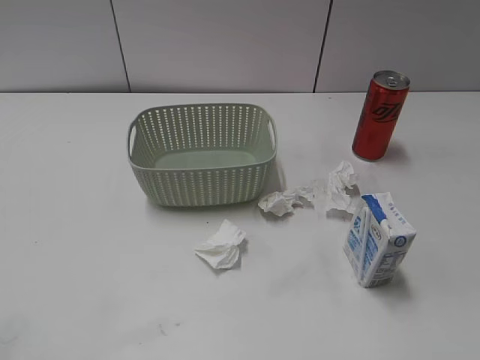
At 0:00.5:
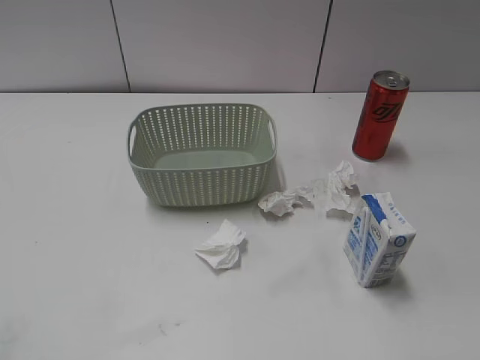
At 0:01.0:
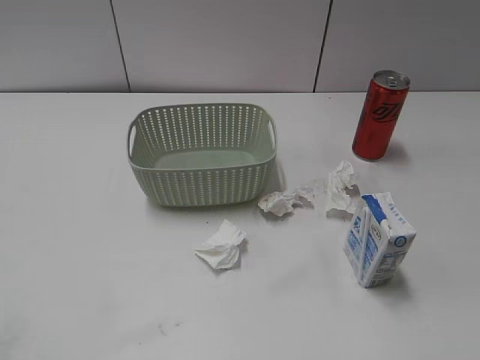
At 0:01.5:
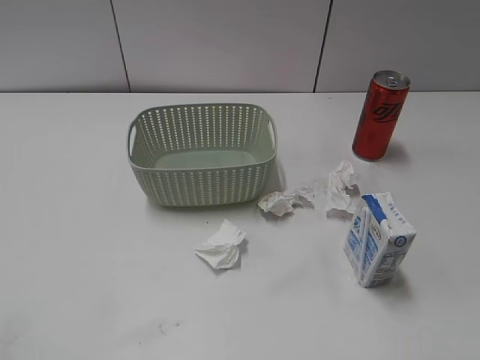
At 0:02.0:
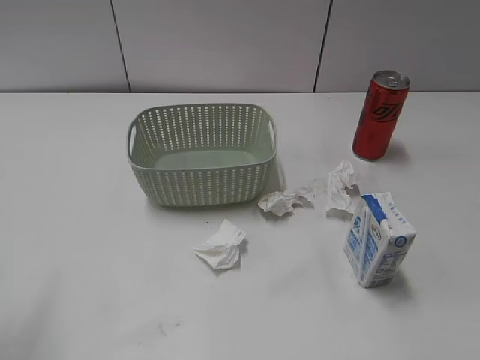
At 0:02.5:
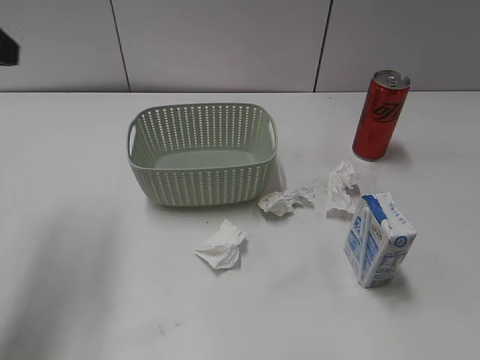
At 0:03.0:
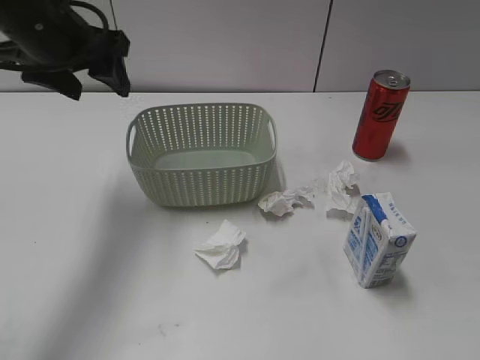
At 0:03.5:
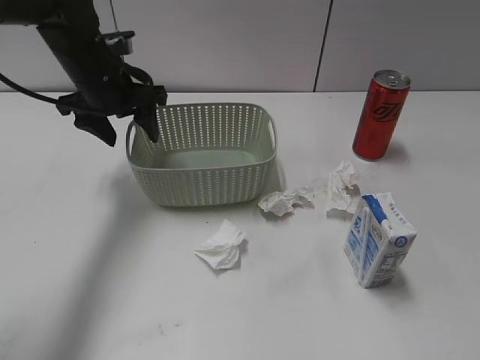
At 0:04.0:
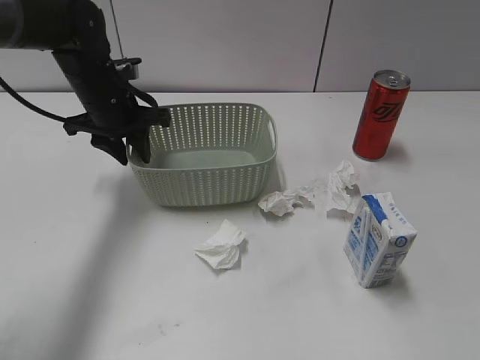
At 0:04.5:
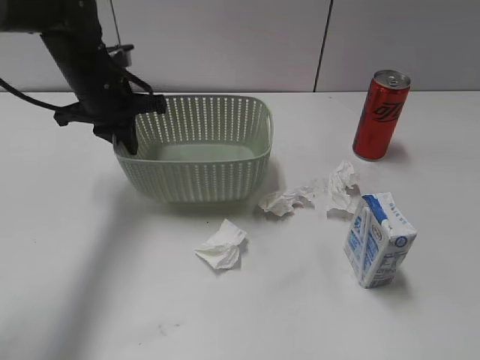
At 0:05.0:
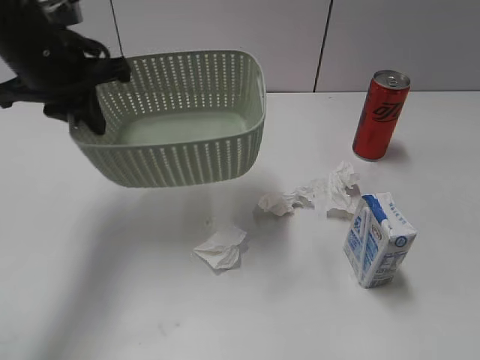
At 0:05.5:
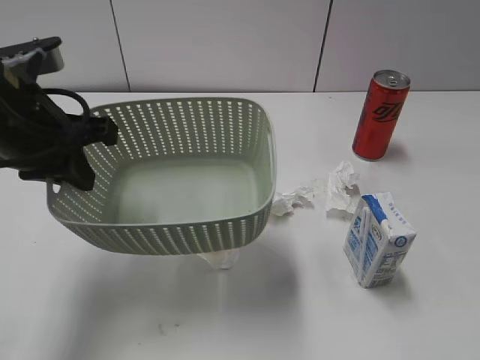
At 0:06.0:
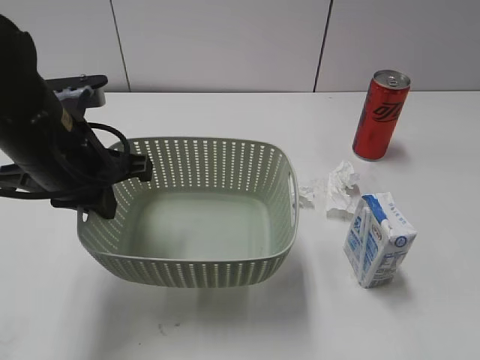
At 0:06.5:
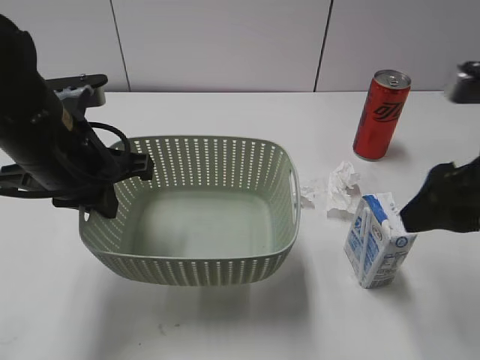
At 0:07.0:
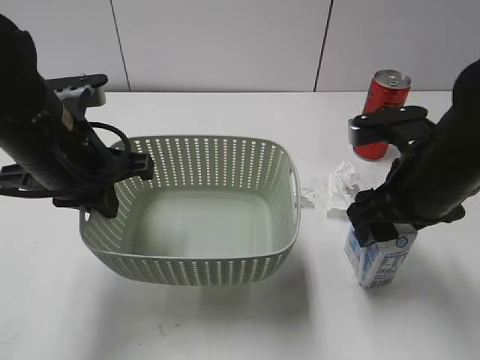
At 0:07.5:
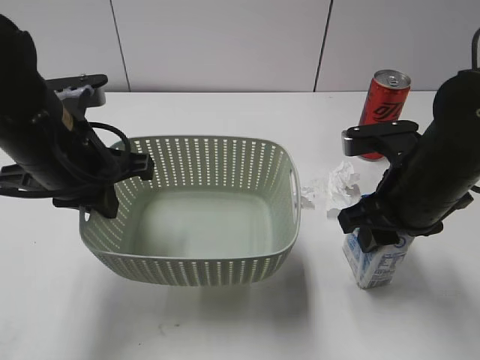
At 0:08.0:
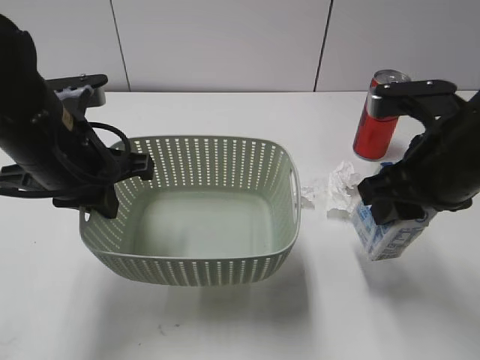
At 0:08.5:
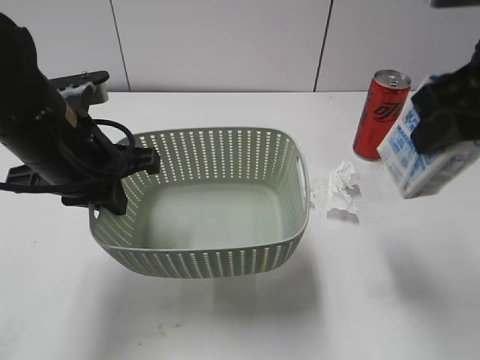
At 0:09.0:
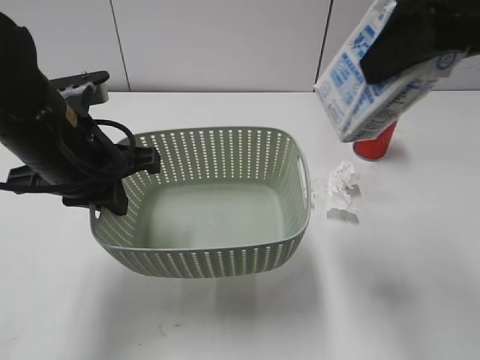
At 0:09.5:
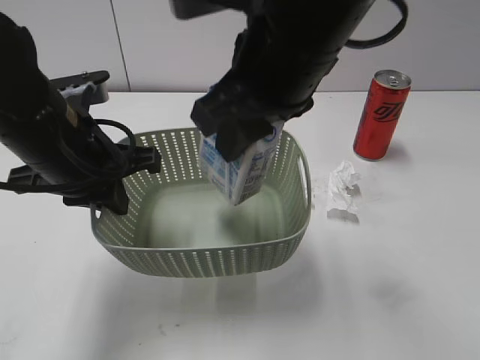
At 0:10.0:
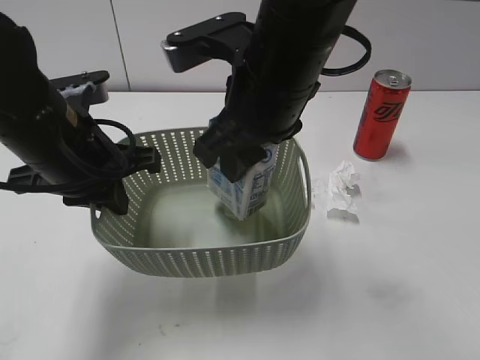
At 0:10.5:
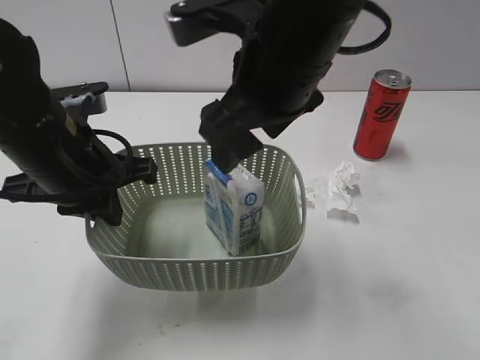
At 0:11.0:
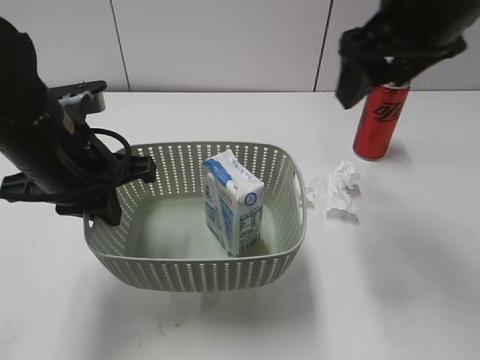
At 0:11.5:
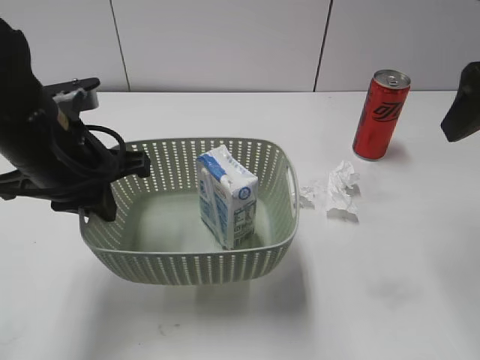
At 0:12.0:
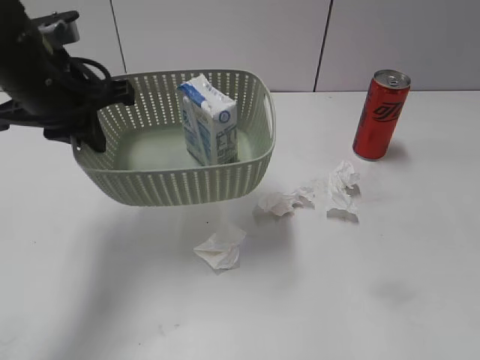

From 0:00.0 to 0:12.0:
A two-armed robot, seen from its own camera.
Step, from 0:02.5 to 0:04.0: Grasp the basket with left gripper.
Step, from 0:04.5 to 0:06.0: Lift the basket with left gripper.
Step, from 0:06.5 to 0:07.5: Grasp the milk with right gripper.
Step, from 0:08.0 to 0:10.5: Place the milk in the basket with right gripper.
From 0:02.0 to 0:04.0: The left gripper shifts about 35 cm forward, downward and to the right, and closes up.
From 0:04.0 to 0:06.0: The right gripper shifts roughly 10 cm forward, while the left gripper travels backward by approximately 15 cm, and closes its fingers.
From 0:06.0 to 0:08.0: The right gripper shifts approximately 20 cm forward, to the left and downward, and closes its fingers.
From 0:08.0 to 0:10.0: The right gripper moves to the left, roughly 15 cm.
From 0:10.0 to 0:12.0: The right gripper shifts approximately 30 cm to the right and backward, and opens. The left gripper moves forward, some 5 cm.

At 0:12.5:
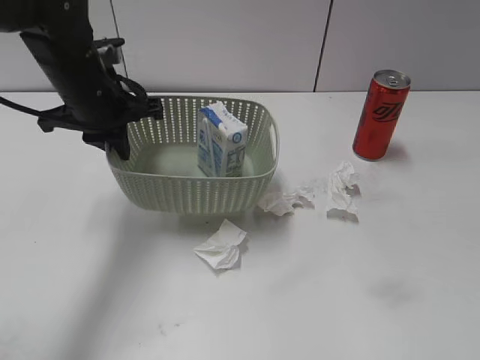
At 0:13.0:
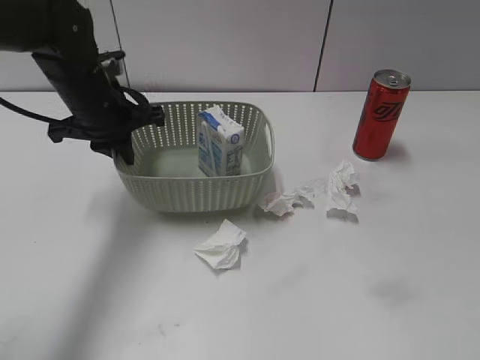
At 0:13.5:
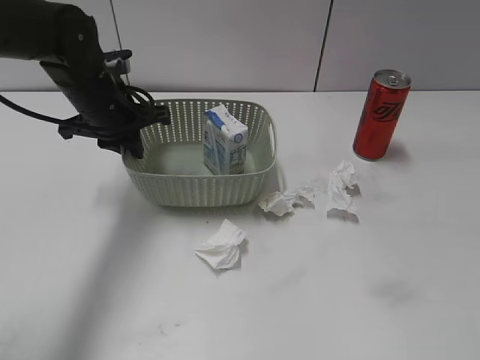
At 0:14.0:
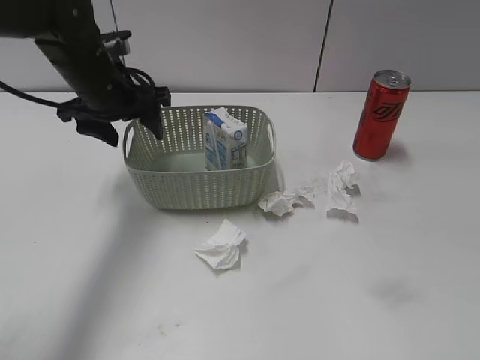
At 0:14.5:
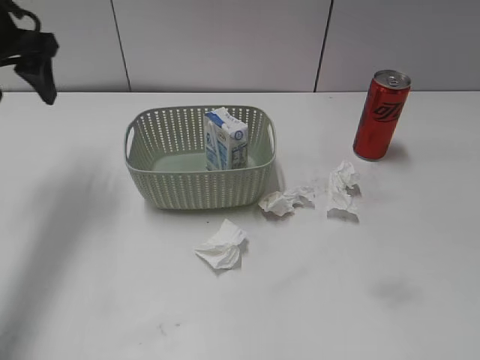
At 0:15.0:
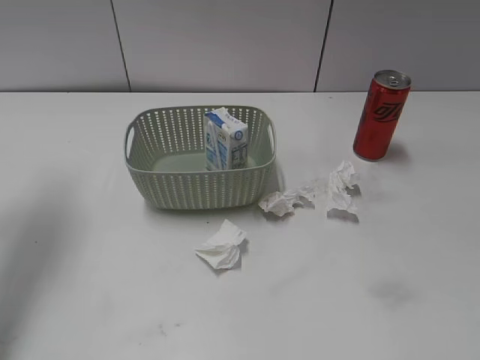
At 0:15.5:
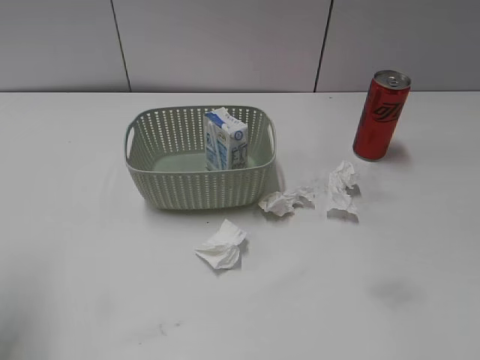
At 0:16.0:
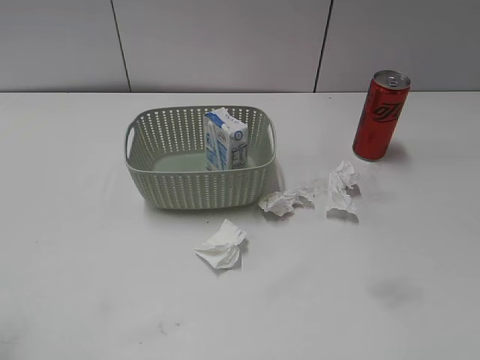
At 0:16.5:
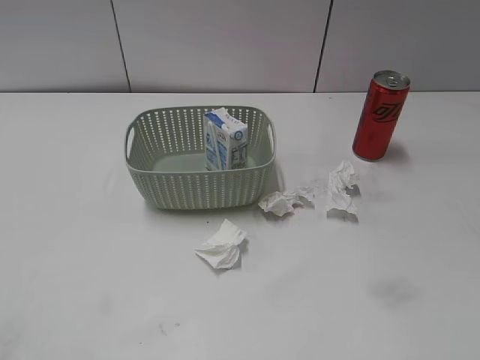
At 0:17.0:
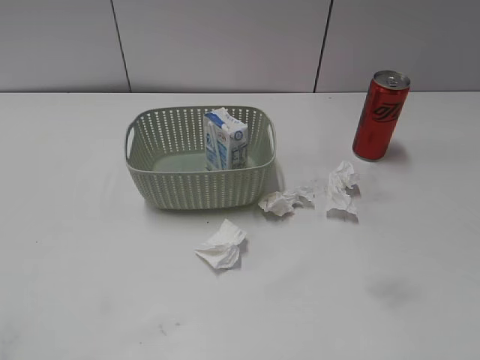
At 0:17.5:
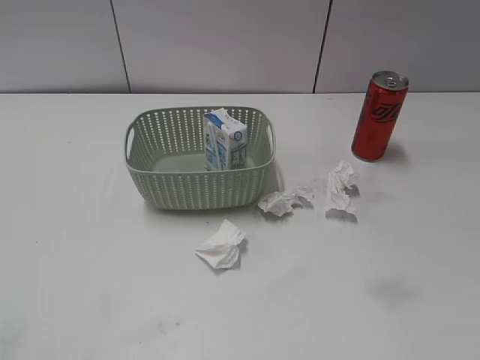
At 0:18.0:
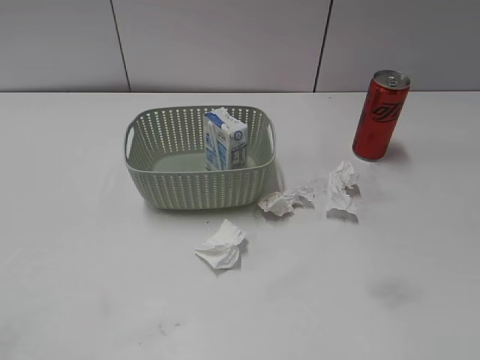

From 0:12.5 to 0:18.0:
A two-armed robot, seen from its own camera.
From 0:12.5 to 0:14.5: The left gripper heads to the left and upward, covering roughly 15 cm, and opens up.
From 0:14.5 to 0:16.0: The left gripper moves backward, approximately 30 cm.

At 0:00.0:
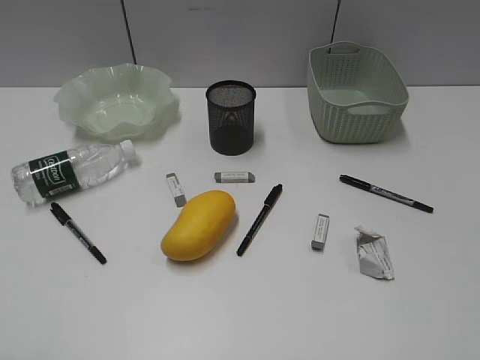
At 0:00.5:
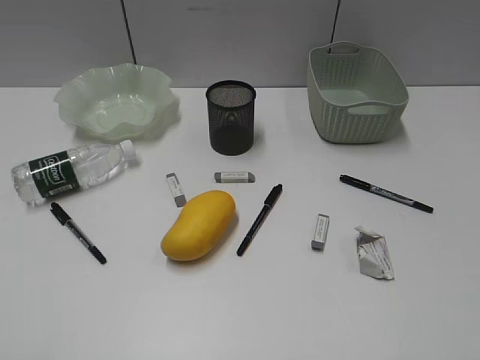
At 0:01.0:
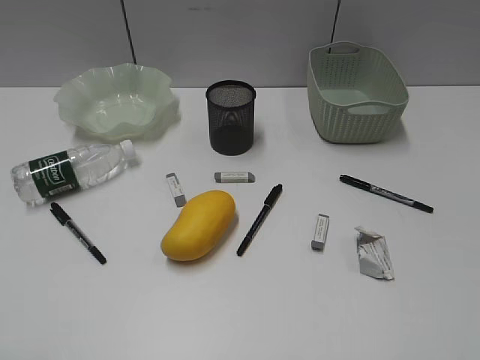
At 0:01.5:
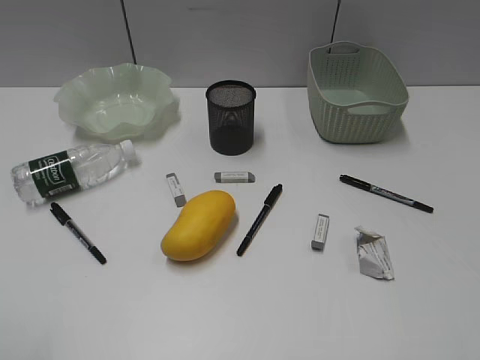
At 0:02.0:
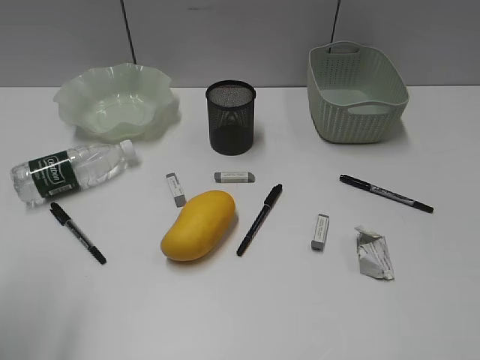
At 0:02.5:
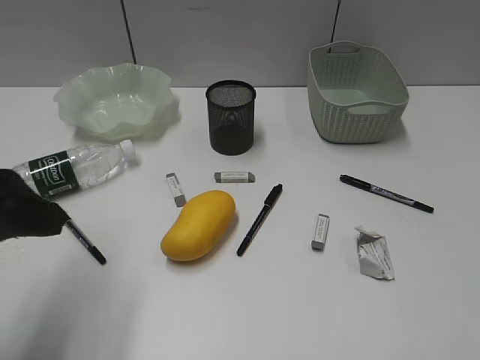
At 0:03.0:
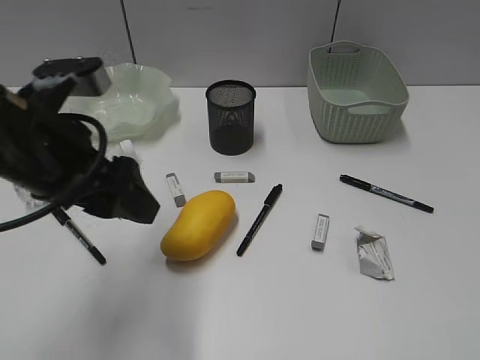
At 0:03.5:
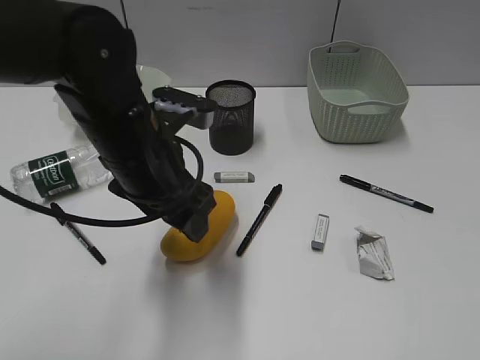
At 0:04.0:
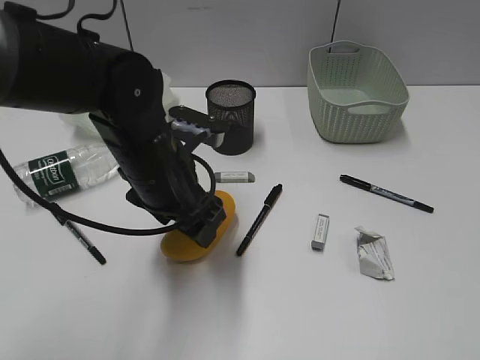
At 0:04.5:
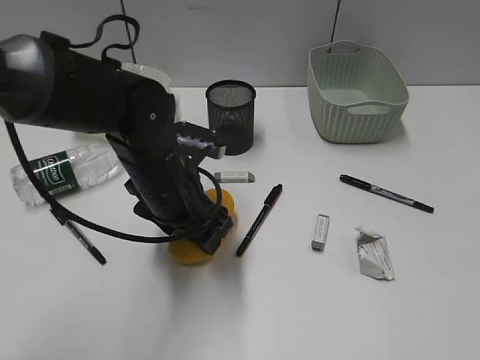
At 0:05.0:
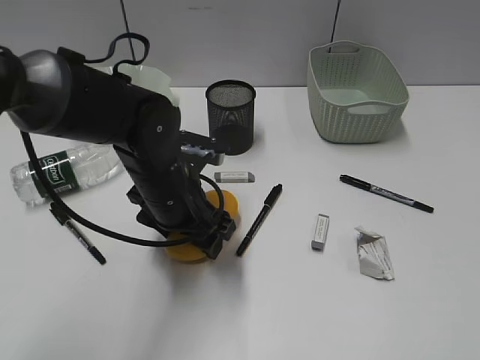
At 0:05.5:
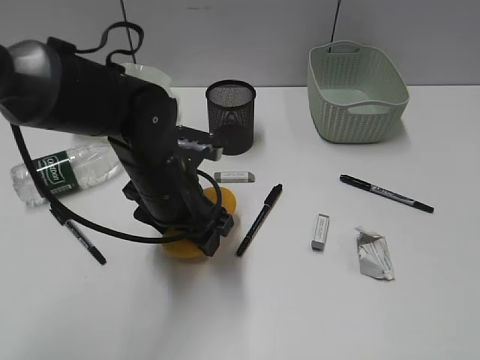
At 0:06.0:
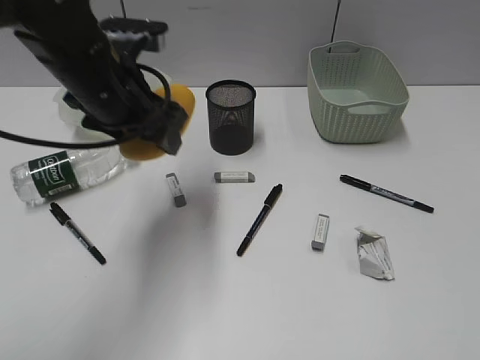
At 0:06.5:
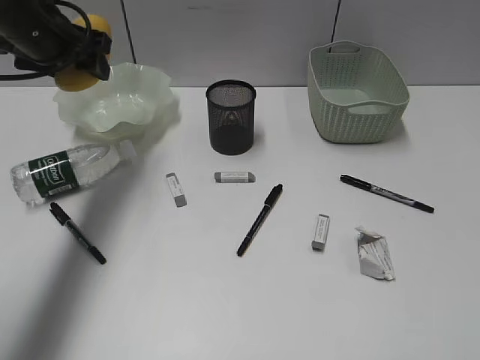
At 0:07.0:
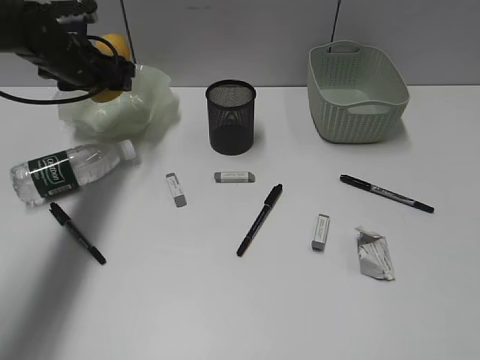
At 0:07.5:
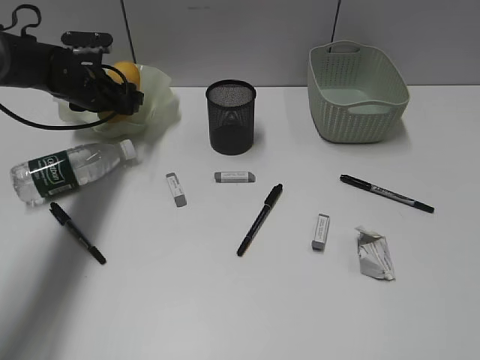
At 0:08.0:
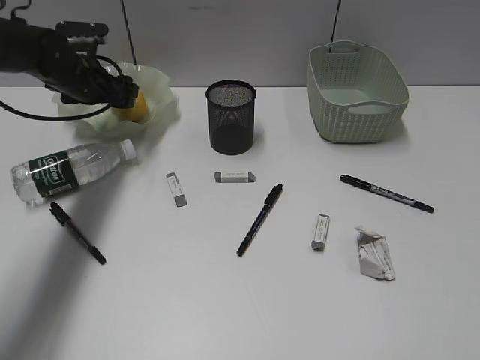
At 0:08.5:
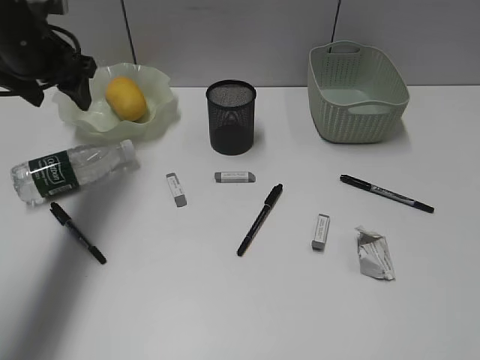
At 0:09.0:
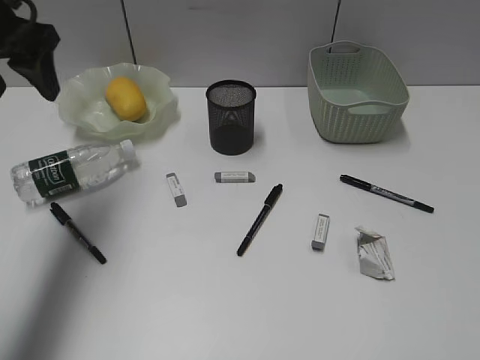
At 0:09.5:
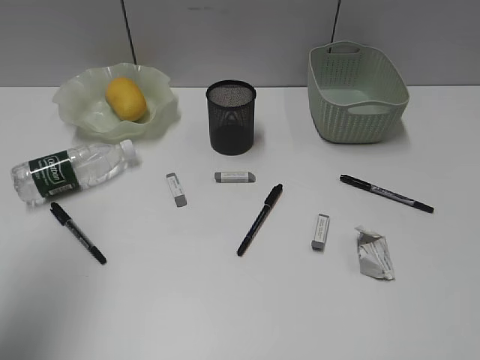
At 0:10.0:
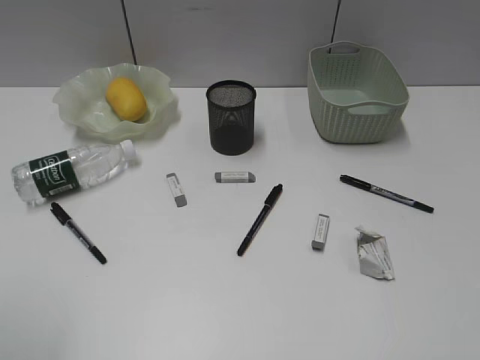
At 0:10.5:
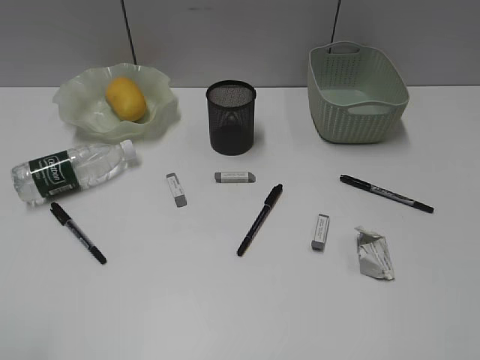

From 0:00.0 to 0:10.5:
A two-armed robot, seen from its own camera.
Step, from 0:02.5 to 0:05.0: Grasp the mango with left gripper.
Step, from 0:05.5 to 0:08.0: Place the mango in the plate with left gripper.
From 0:02.0 to 0:04.0: The left gripper is displaced to the right, forward and downward by roughly 30 cm.
From 0:04.0 to 0:06.5: The left gripper is displaced to the left, forward and upward by roughly 20 cm.
From 0:06.5 to 0:08.5: The left gripper goes downward and returns, approximately 15 cm each way.
From 0:08.5 to 0:10.5: The left gripper heads backward, covering about 40 cm.
